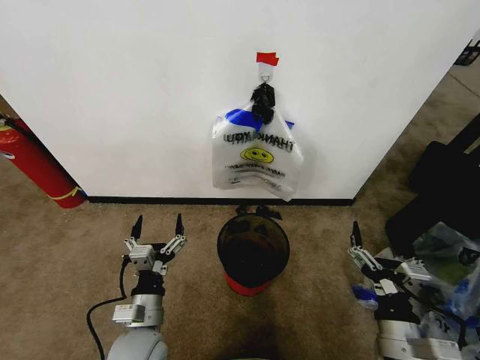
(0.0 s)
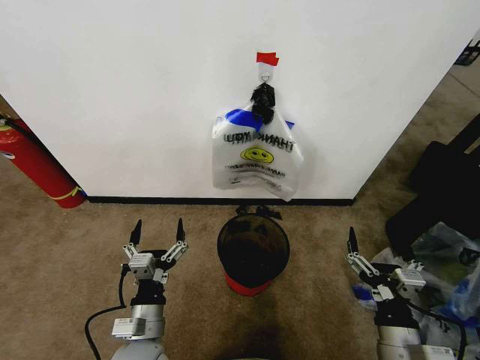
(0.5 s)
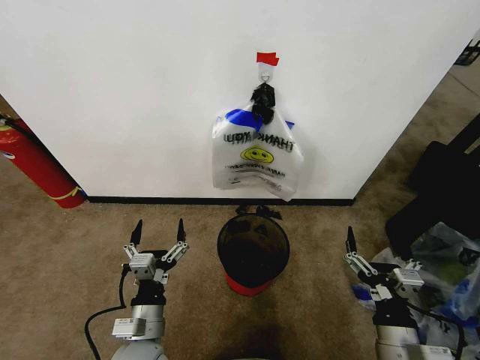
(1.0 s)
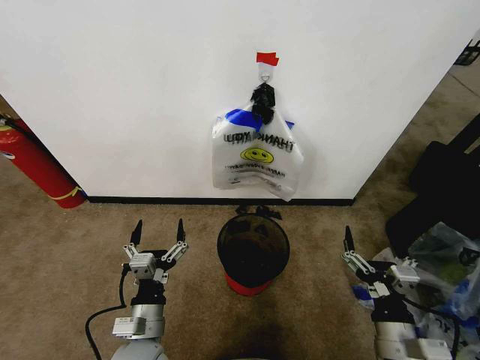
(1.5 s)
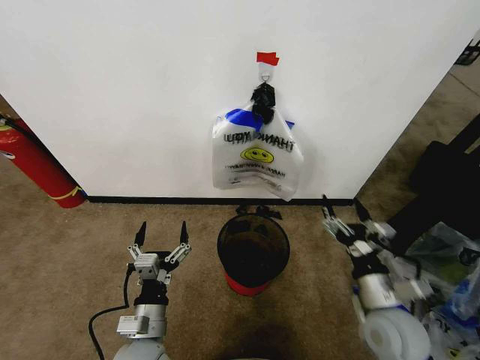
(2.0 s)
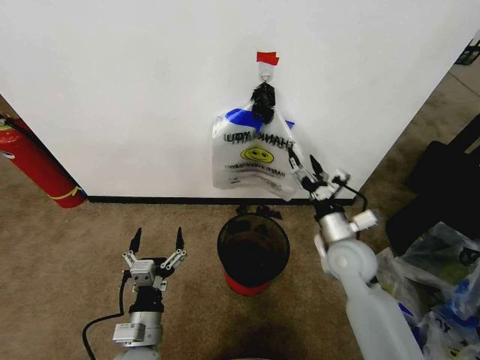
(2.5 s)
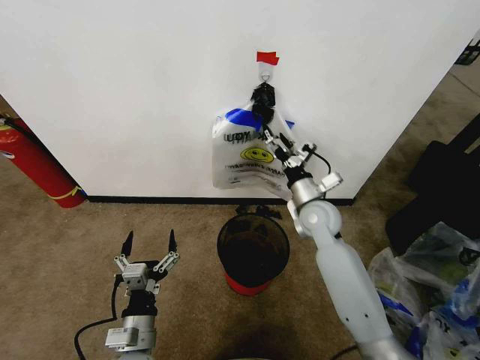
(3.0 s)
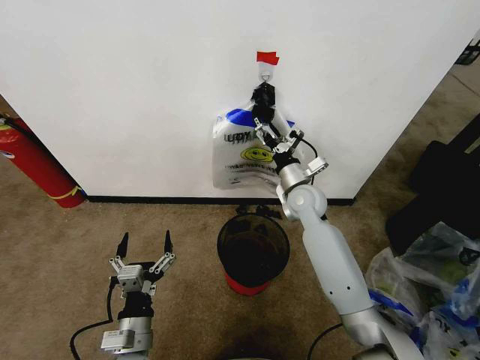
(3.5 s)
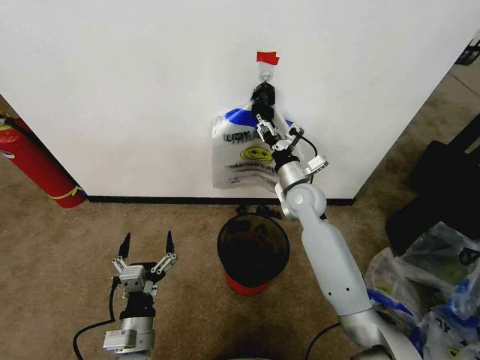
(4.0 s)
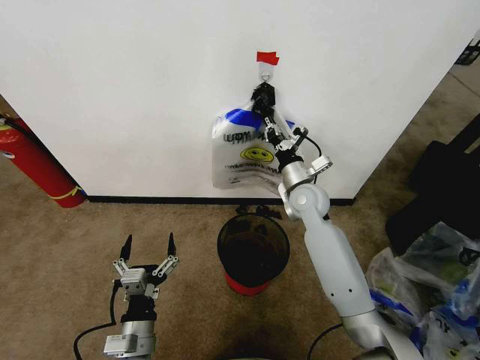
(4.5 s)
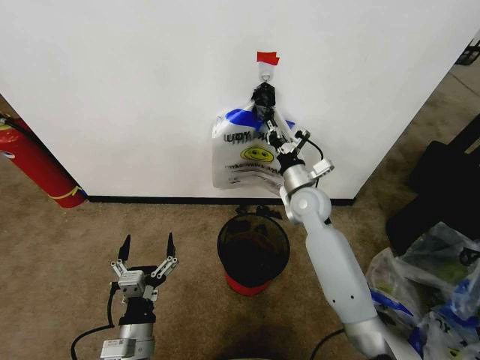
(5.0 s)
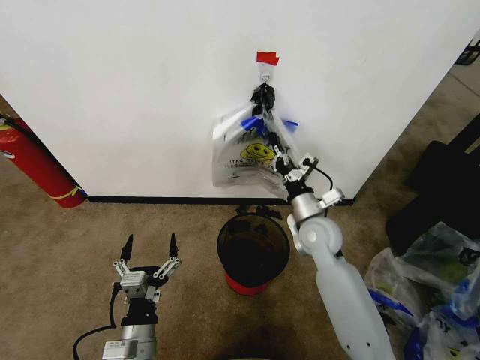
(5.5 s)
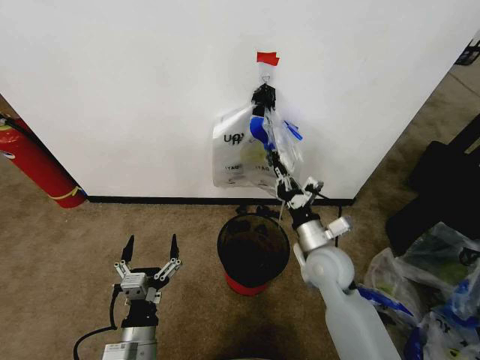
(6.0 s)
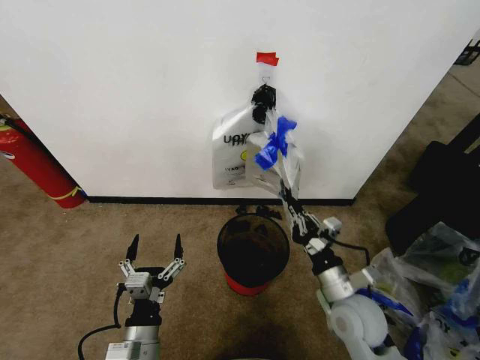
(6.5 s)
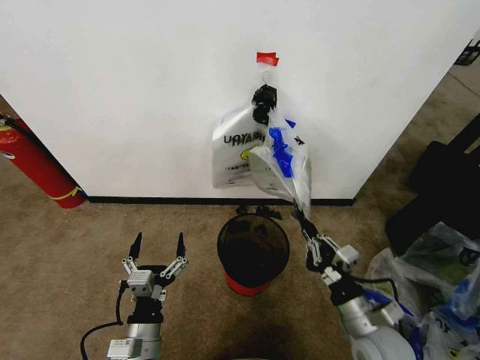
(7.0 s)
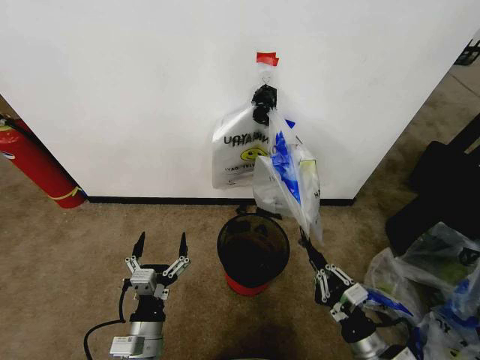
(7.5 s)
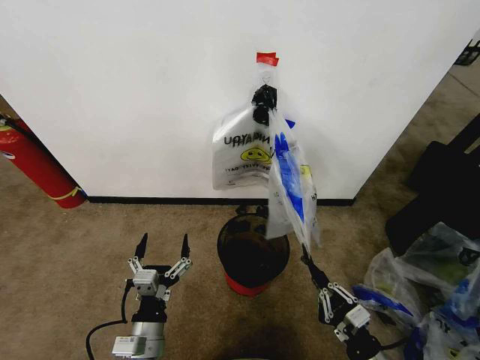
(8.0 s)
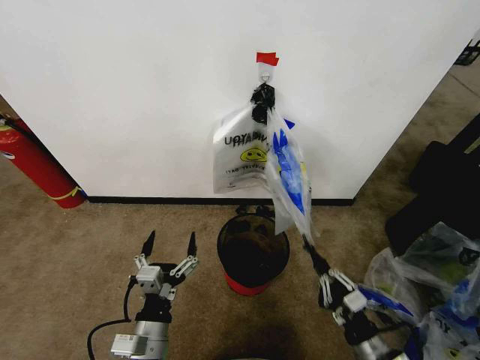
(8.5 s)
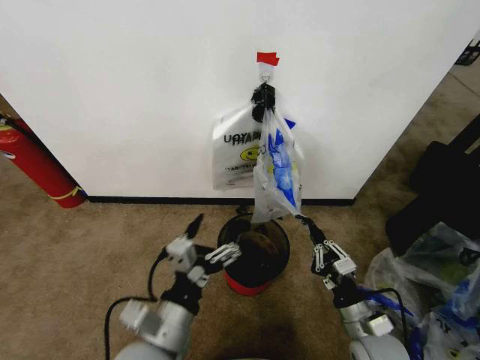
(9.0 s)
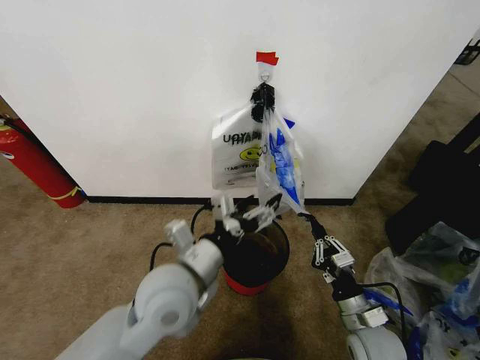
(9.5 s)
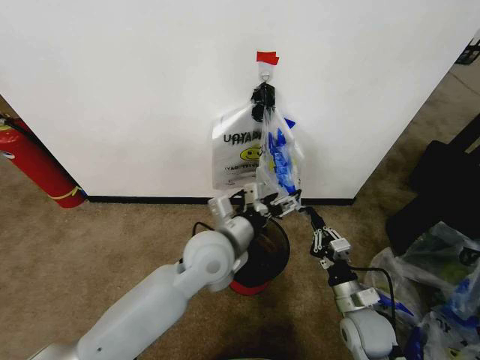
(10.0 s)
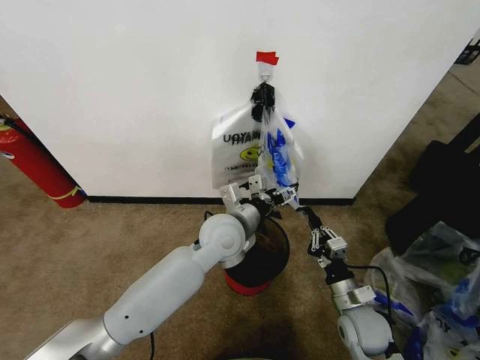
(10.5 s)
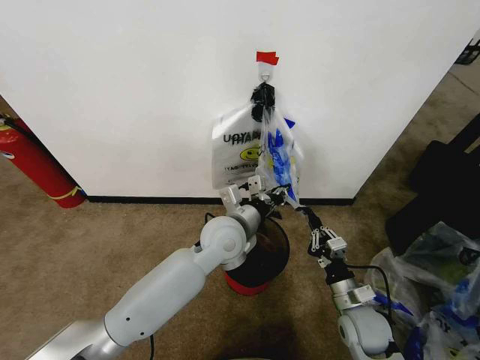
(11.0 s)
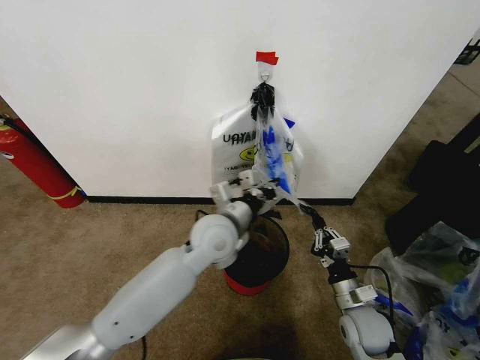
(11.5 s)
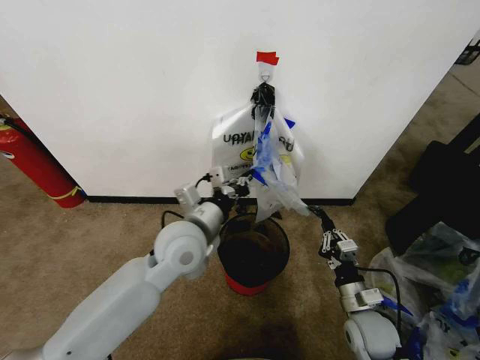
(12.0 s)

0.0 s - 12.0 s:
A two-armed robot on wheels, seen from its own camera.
Task of the whole recording: Pick up the garbage bag from the wall and place it over the trash bin.
2.0 s - 4.0 s: The right gripper goes approximately 30 cm forward and to the left, and closes its fingers.
4.0 s - 6.0 s: The right gripper is displaced backward by about 15 cm, and closes up.
6.0 s - 8.0 s: The right gripper heads backward, downward and to the right, covering roughly 30 cm.
8.0 s - 10.0 s: The left gripper travels forward, upward and to the right by roughly 25 cm. Meanwhile the right gripper shifts about 15 cm forward.
10.0 s - 12.0 s: The left gripper shifts roughly 5 cm to the left, and closes.

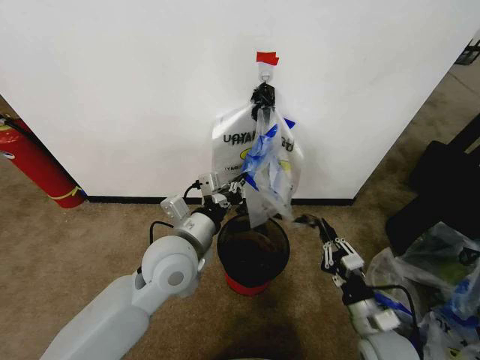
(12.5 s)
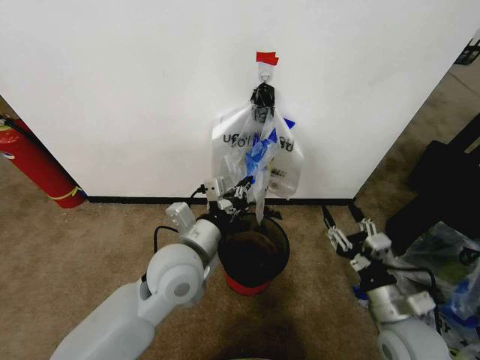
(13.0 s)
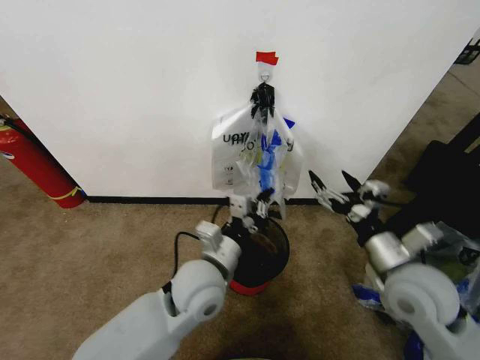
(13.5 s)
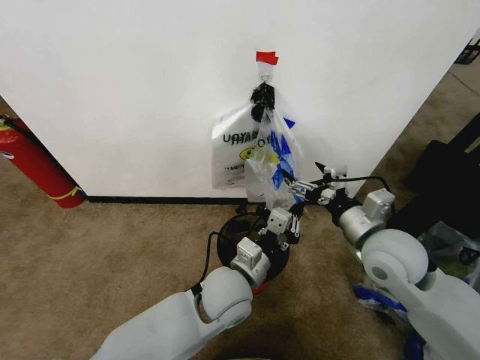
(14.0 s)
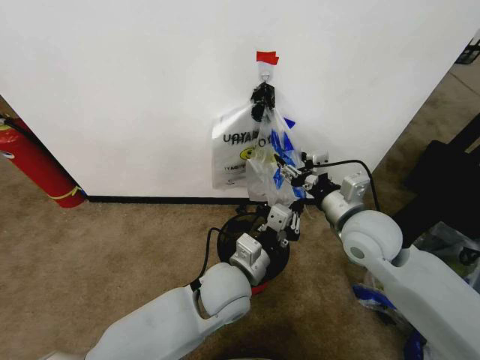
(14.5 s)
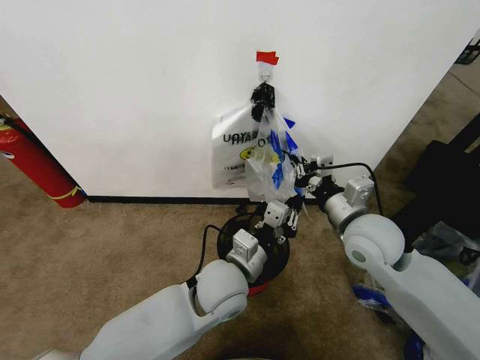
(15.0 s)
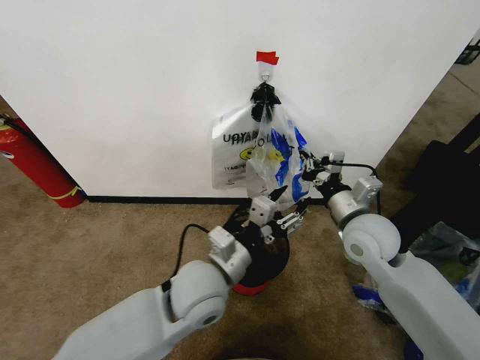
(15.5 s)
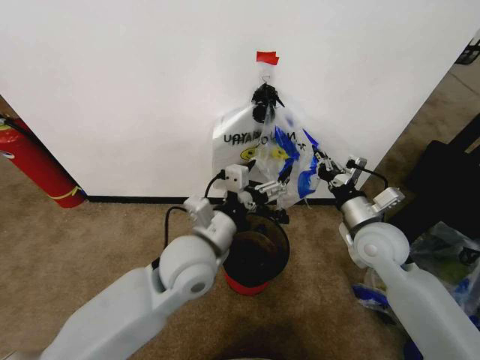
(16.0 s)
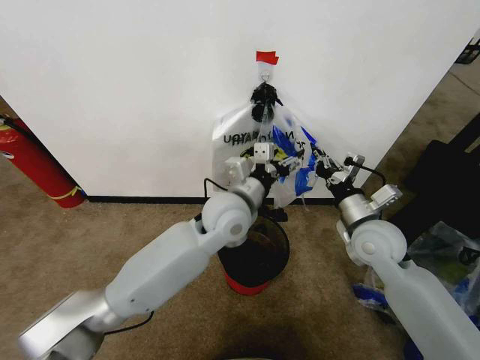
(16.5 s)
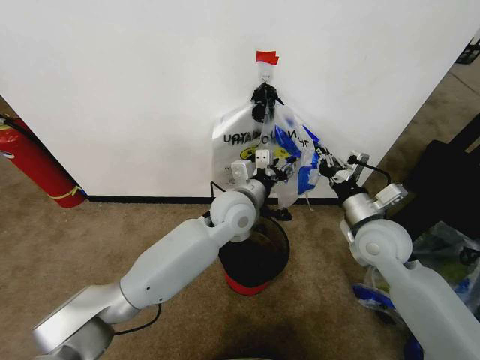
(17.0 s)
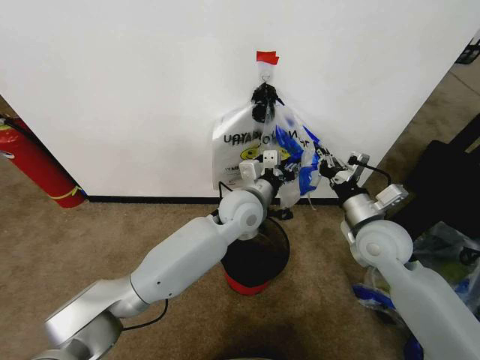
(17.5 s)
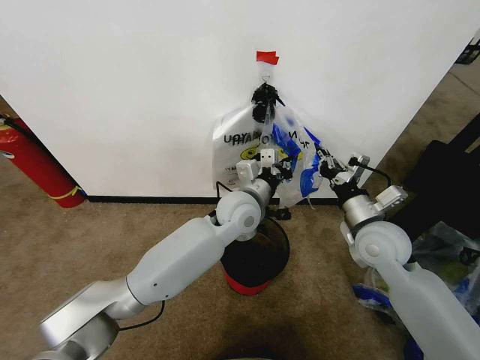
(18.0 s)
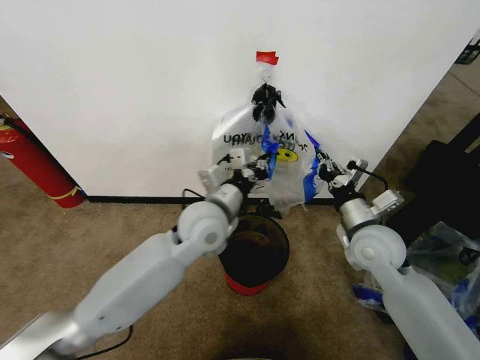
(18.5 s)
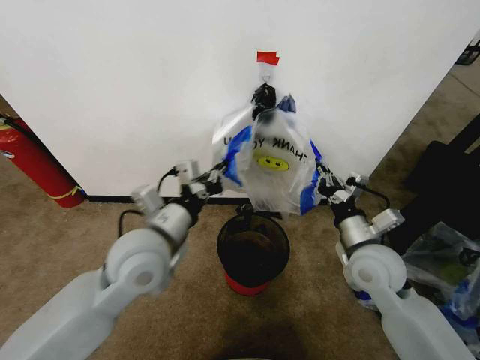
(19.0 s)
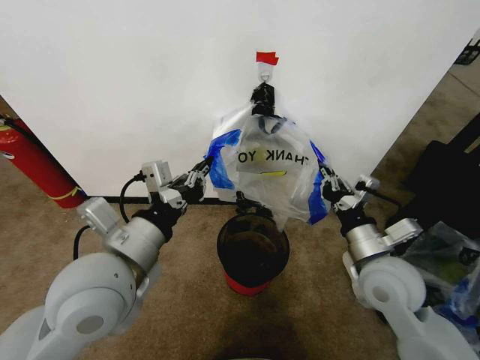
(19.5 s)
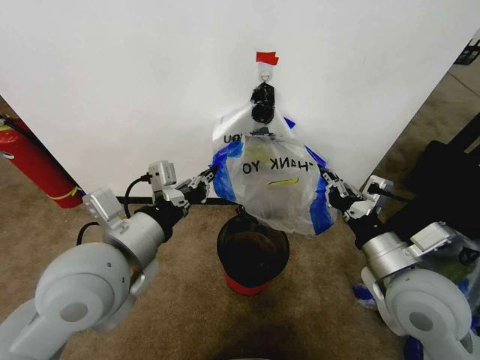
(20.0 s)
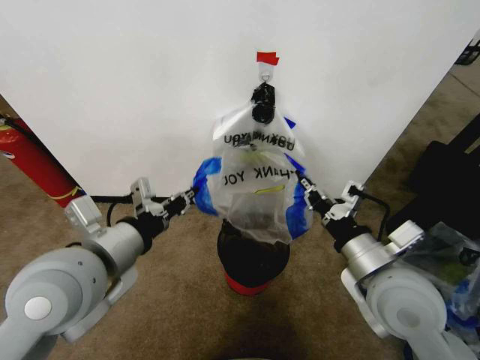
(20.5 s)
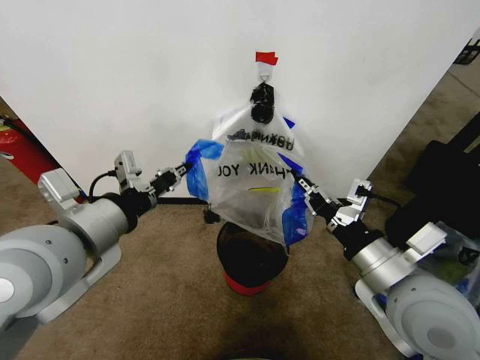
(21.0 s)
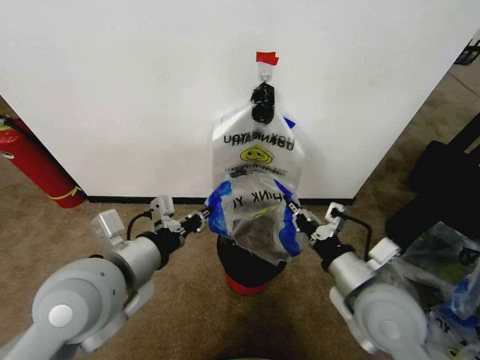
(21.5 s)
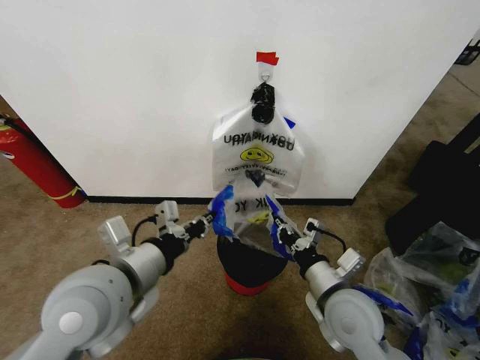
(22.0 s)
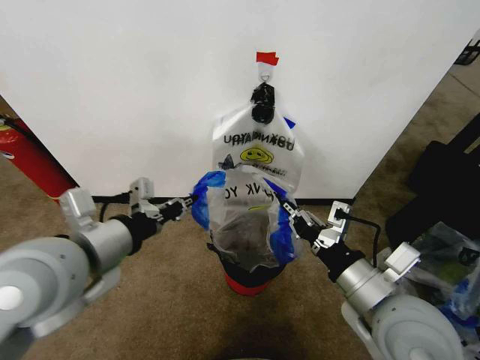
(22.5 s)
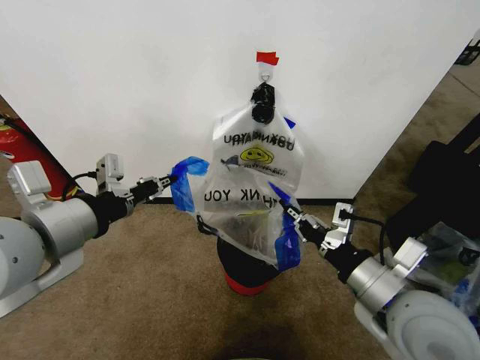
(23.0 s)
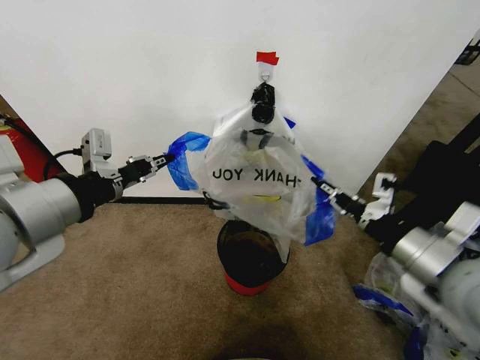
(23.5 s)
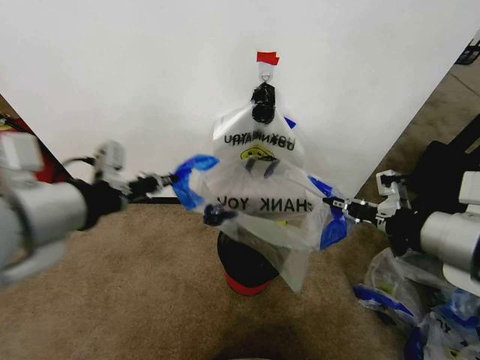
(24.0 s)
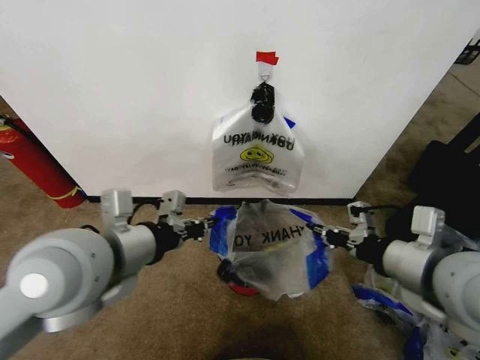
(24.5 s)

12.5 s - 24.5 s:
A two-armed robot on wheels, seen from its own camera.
Task of the whole recording: Pick up the garbage bag from the wall and place it over the trash bin.
12.5 s - 14.5 s: The left gripper is displaced to the right and downward by approximately 10 cm. Meanwhile the right gripper shifts roughly 25 cm upward and forward, and opens its fingers.
14.5 s - 16.5 s: The left gripper shifts some 15 cm forward and upward, and opens up, while the right gripper shifts by approximately 5 cm, and closes its fingers.
16.5 s - 18.5 s: The left gripper closes its fingers.
18.5 s - 20.5 s: The left gripper heads to the left, backward and upward, covering about 25 cm, while the right gripper moves backward and upward, roughly 15 cm.
20.5 s - 22.5 s: The right gripper moves about 10 cm downward and comes back.
22.5 s - 24.5 s: The left gripper goes upward and returns, roughly 10 cm each way, while the right gripper moves upward and to the right, roughly 10 cm.

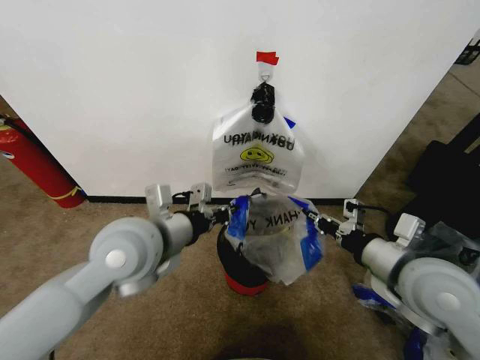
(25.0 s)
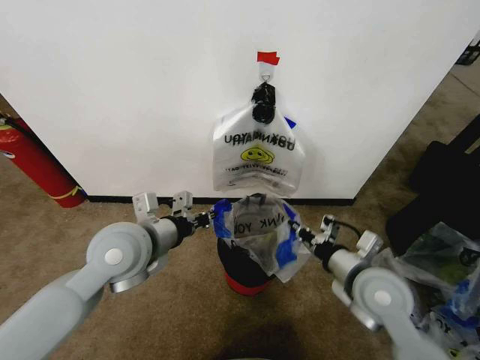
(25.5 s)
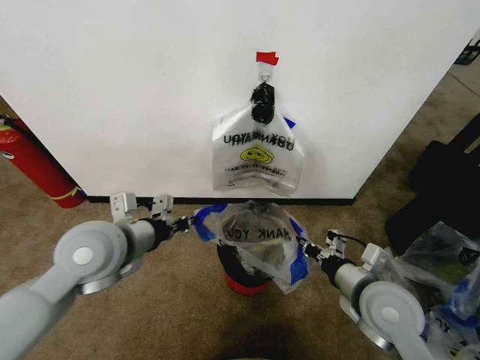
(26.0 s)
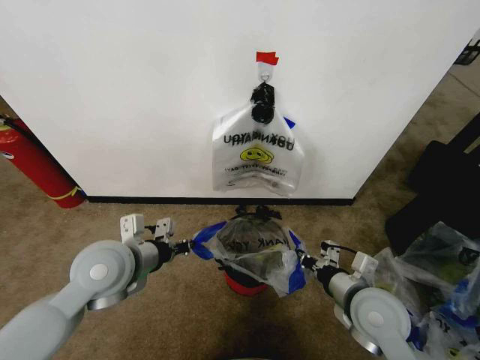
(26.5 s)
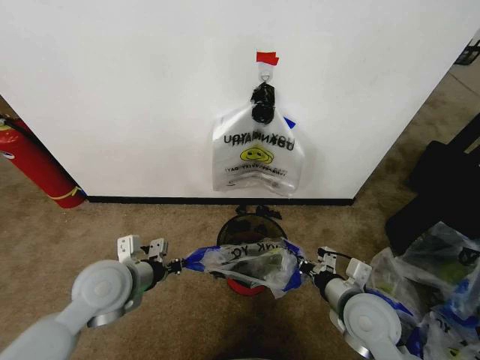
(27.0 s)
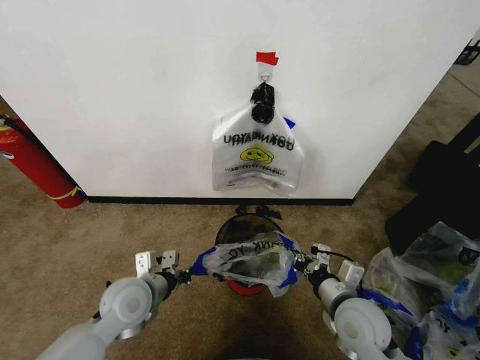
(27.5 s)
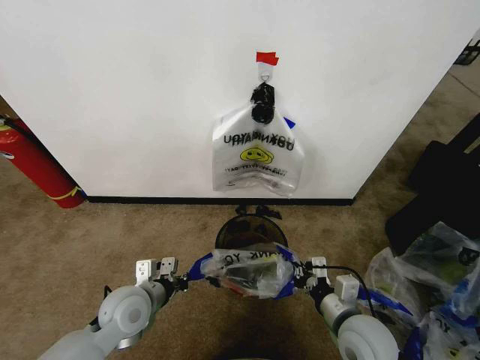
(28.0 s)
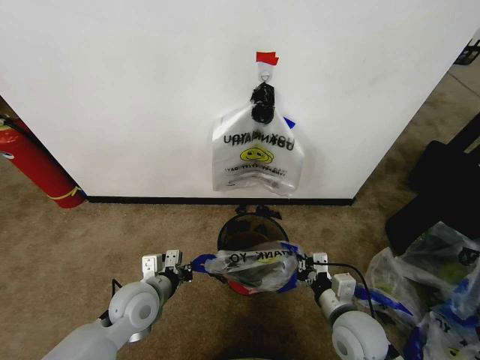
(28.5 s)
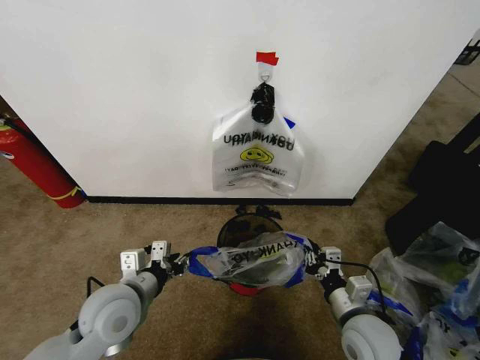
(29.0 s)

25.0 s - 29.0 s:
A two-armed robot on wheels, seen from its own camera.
Task of the whole recording: Pick up the garbage bag from the wall and place it over the trash bin.
25.0 s - 27.0 s: The right gripper shifts approximately 15 cm downward. The left gripper is displaced downward and to the left by roughly 15 cm.
27.0 s - 29.0 s: The left gripper moves about 10 cm downward and comes back, and opens.
